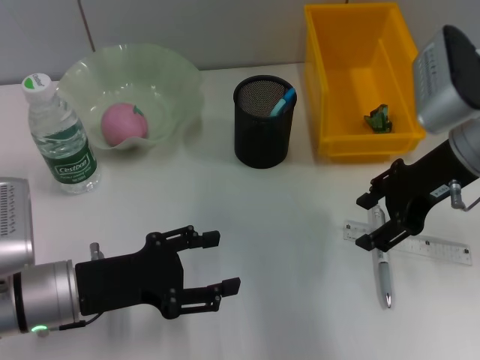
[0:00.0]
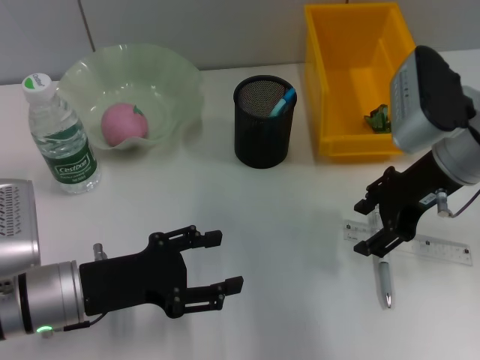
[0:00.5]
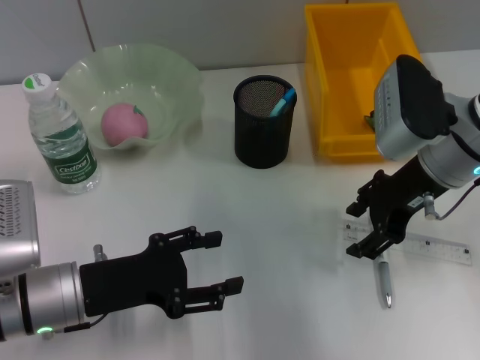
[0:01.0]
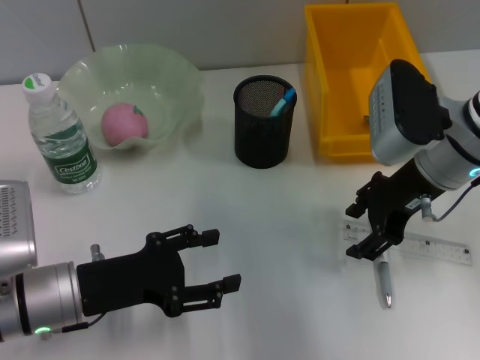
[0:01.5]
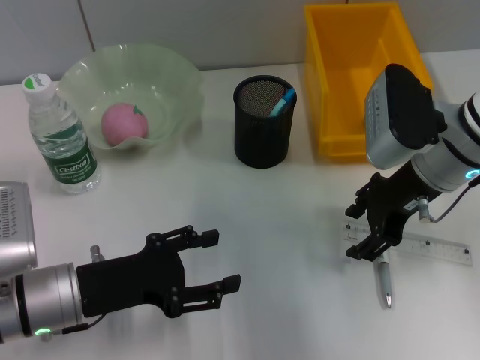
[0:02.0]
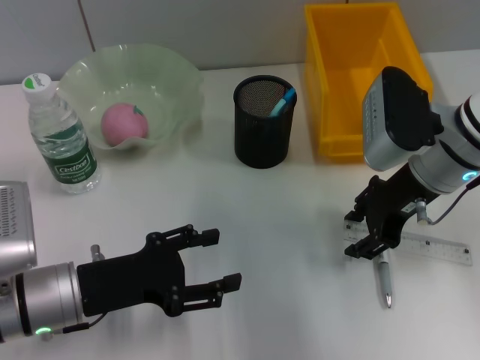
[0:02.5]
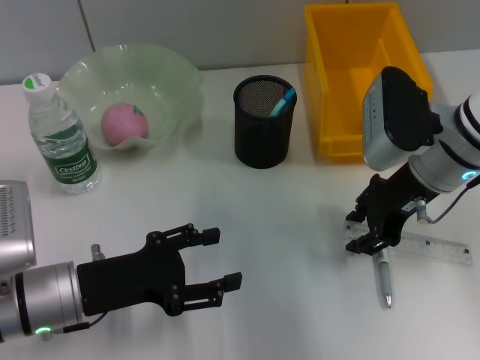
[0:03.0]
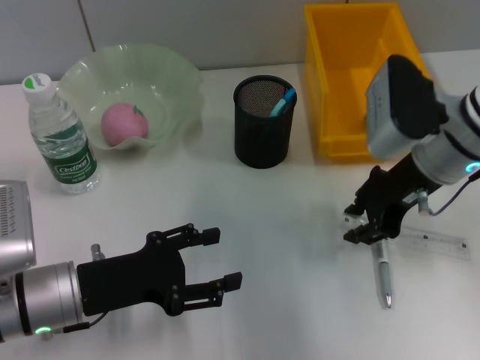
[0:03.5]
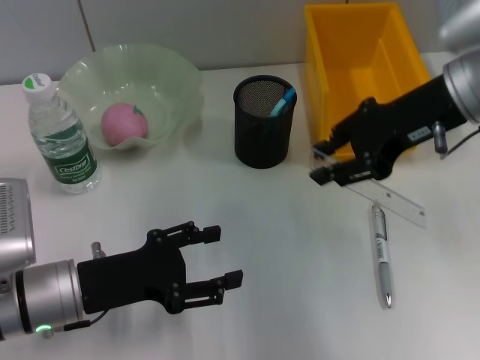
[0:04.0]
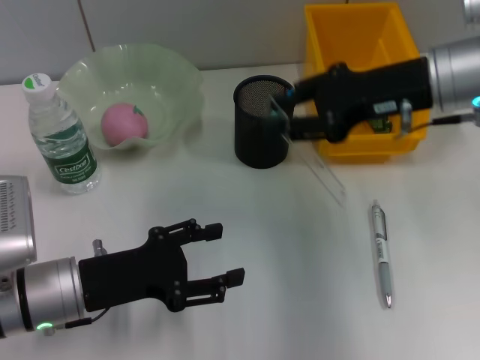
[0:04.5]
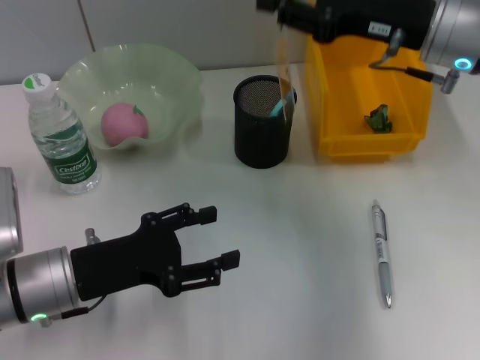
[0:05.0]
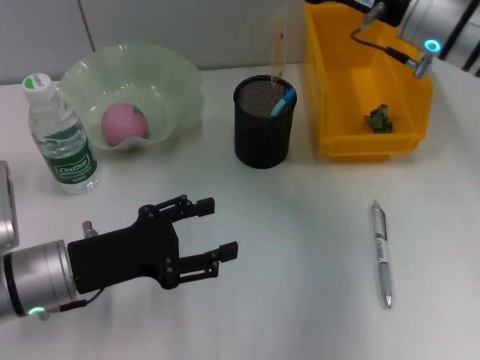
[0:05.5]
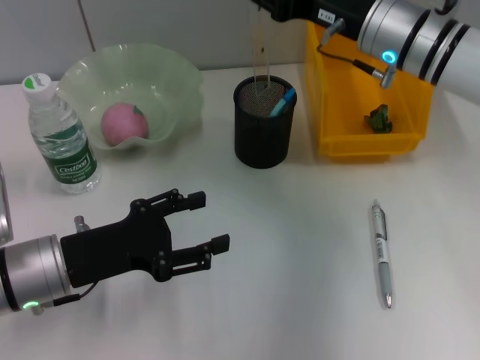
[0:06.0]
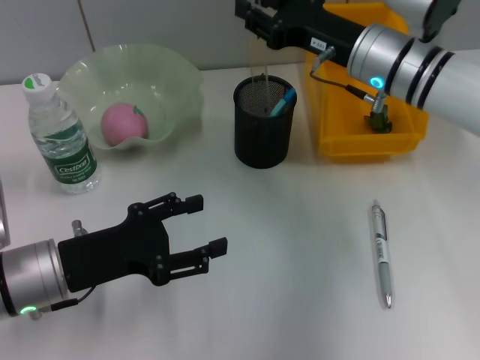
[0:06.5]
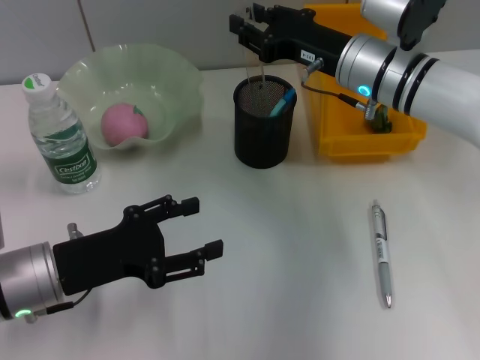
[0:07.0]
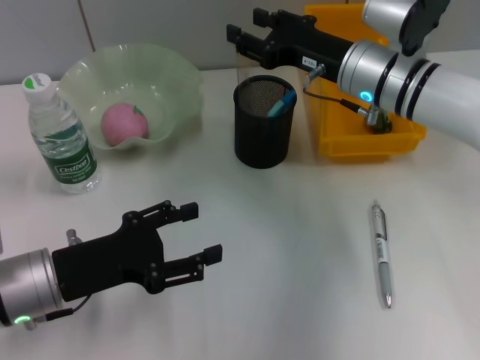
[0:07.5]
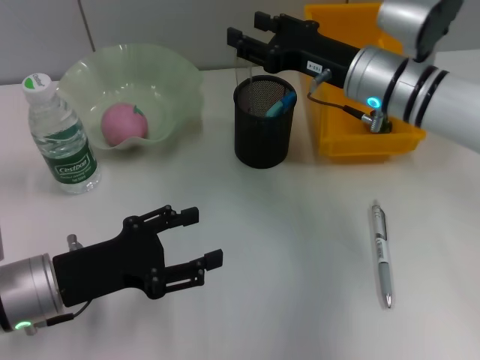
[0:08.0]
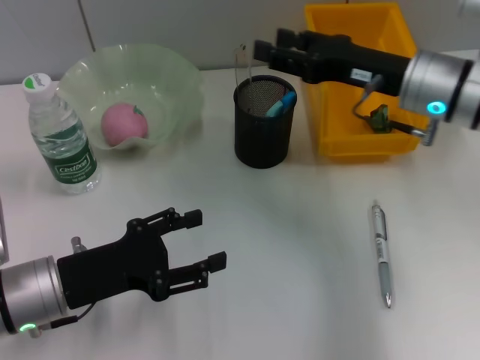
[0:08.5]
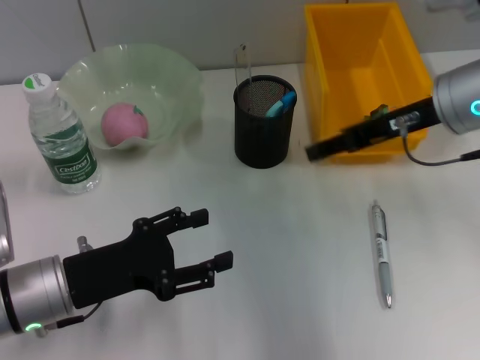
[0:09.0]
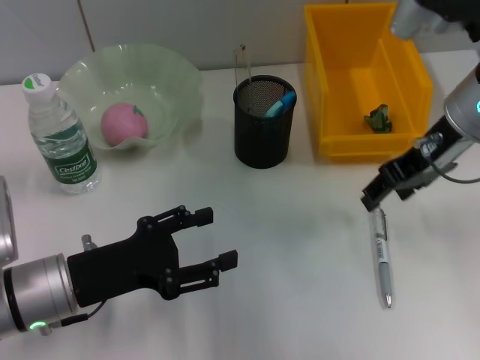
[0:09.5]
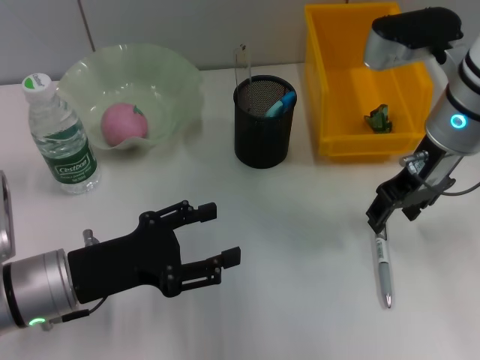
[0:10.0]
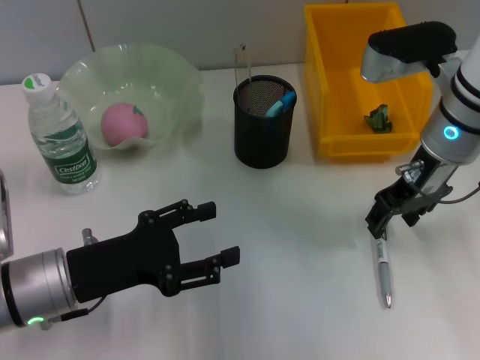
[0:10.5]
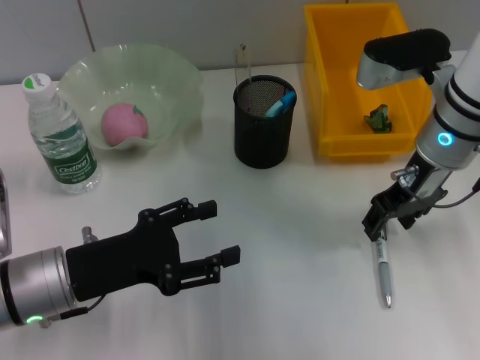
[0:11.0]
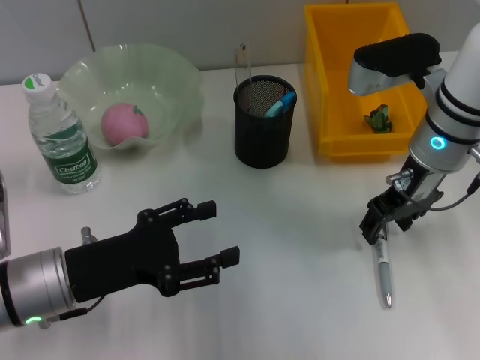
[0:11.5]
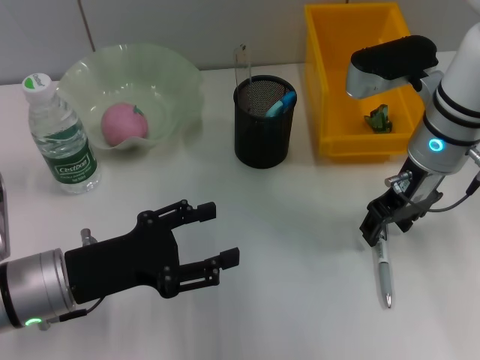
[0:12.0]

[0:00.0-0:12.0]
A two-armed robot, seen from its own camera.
Step, 0:00.0 to 0:03.0: Grab the ruler with the right hand.
Step, 0:03.5 to 0:07.5: Place the ruler into the pen holder with the right hand.
0:00.0 to 0:02.0: There are only small adjustments of the grippers.
0:02.0 to 0:04.0: The right gripper goes some 10 cm upward, and closes.
0:04.0 to 0:06.0: The right gripper shifts some 10 cm forward and downward.
0:06.0 to 0:08.0: The grippers move only a little.
0:08.0 to 0:10.0: The right gripper travels upward by about 5 cm.
0:10.0 to 0:12.0: The grippers stay close to where they were, moving slightly.

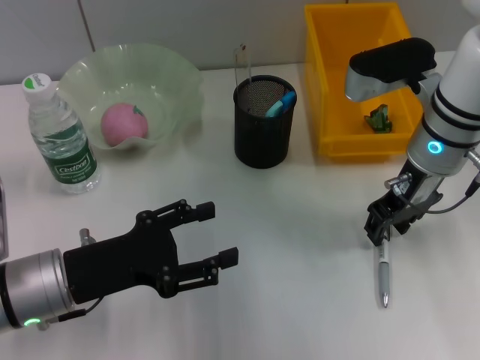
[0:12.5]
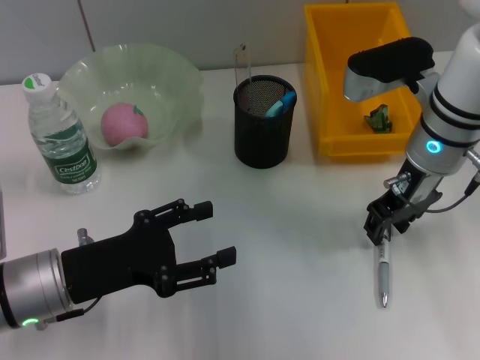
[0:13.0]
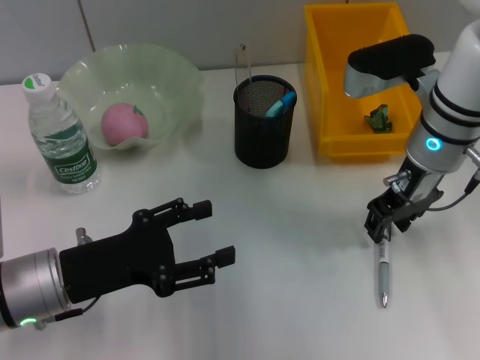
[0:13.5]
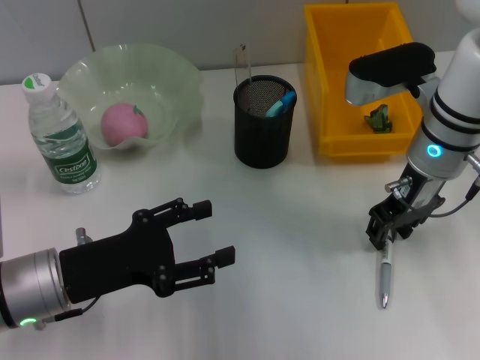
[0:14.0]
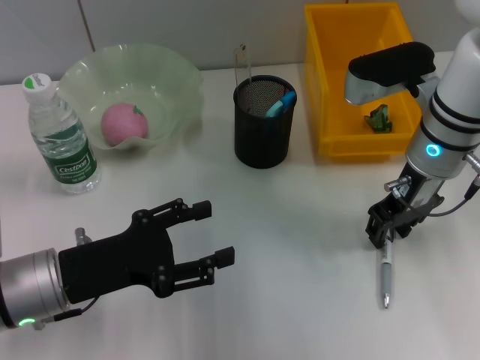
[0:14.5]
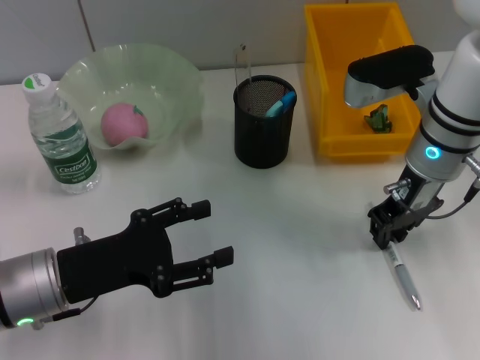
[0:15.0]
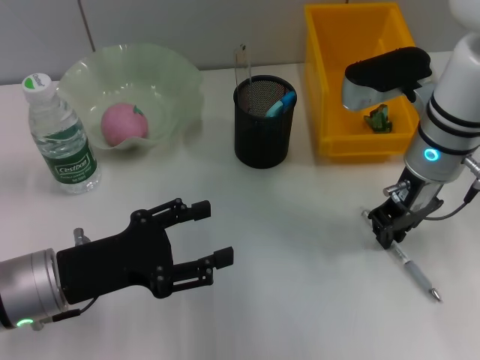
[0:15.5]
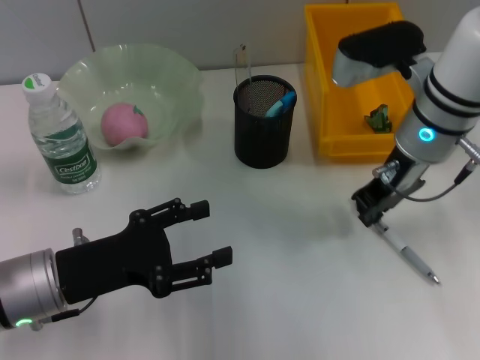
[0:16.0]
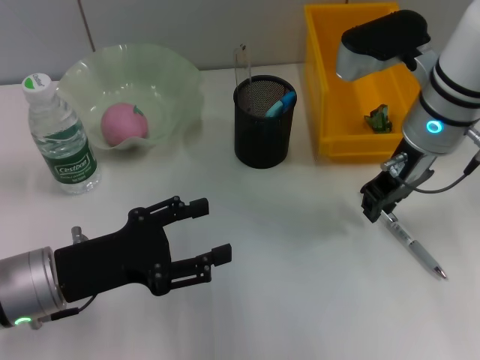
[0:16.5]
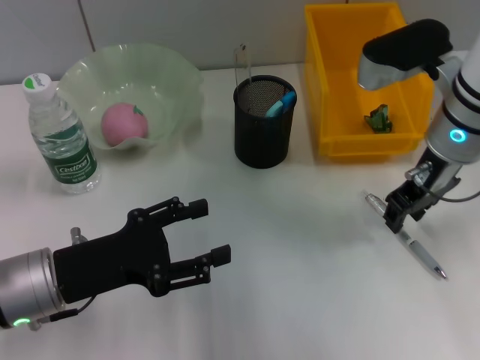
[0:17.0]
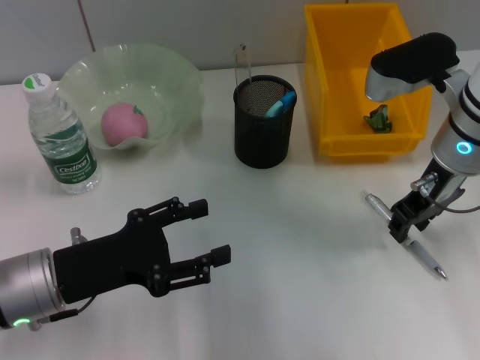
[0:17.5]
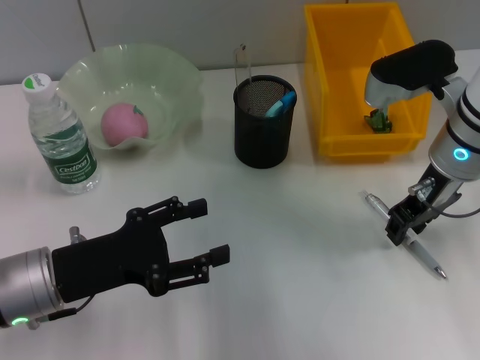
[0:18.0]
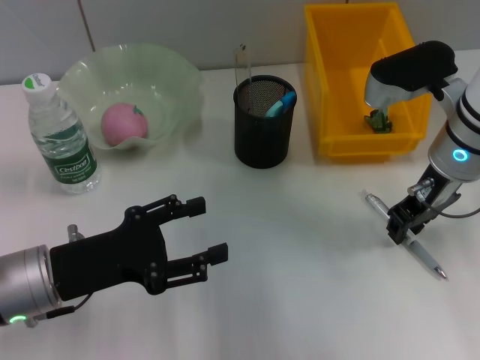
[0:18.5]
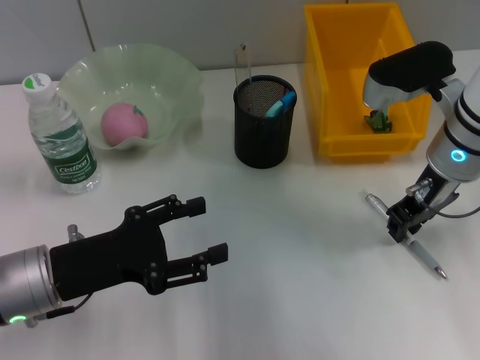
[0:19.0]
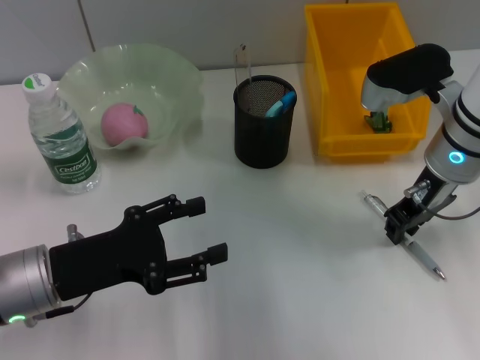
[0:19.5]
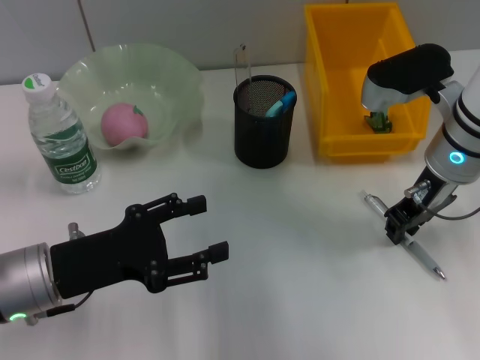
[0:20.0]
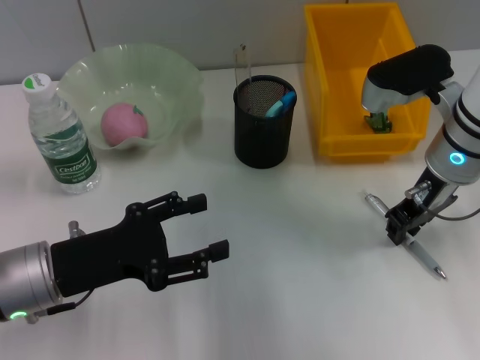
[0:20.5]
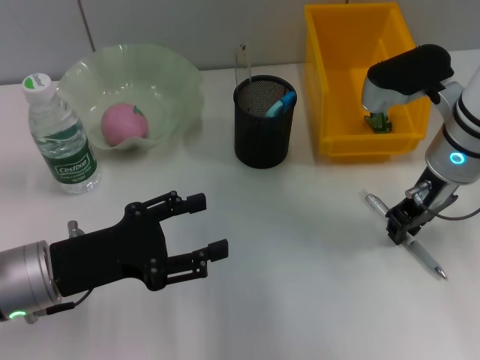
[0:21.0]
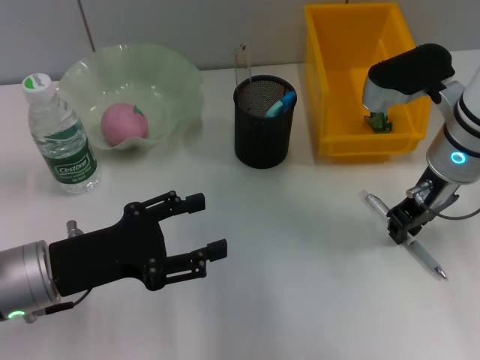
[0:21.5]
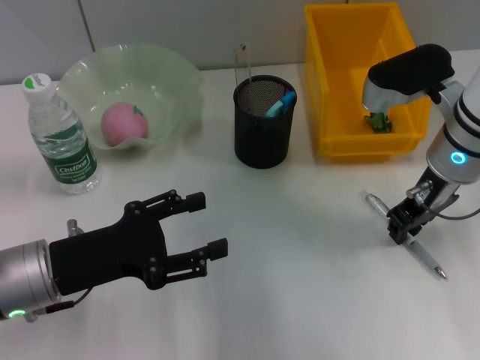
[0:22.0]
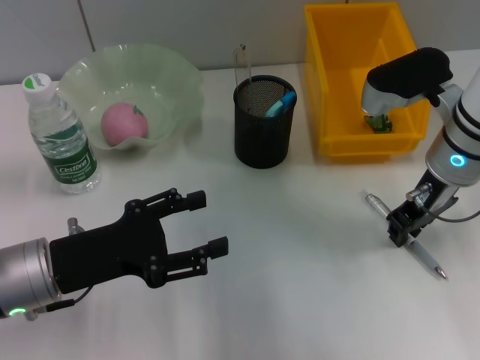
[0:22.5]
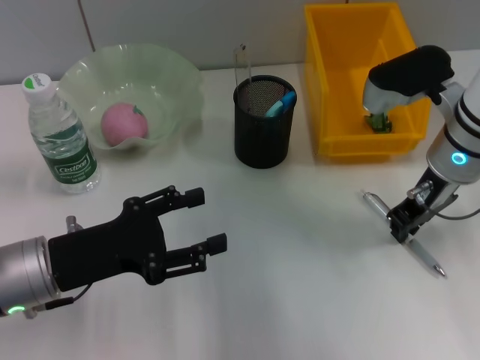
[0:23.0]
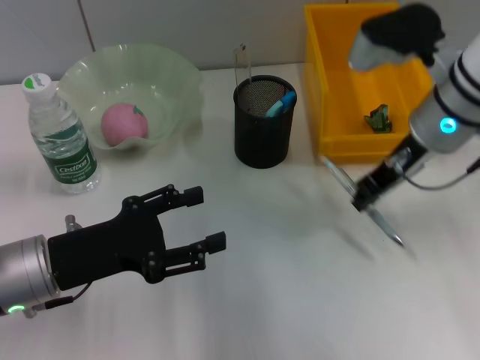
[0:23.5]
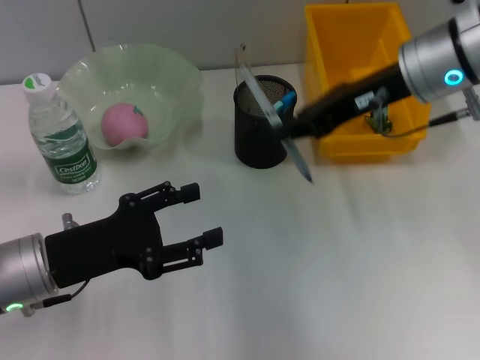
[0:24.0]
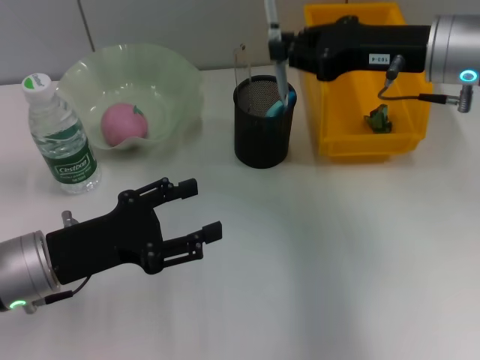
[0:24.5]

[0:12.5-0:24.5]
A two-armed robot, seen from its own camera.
Step, 0:12.5 to 0:22.5: Grab the gray spring-action pen with the right hand.
0:12.5 to 0:14.5: The two grippers keep their place.
0:14.5 to 0:16.5: The right gripper closes.
0:16.5 to 0:18.5: The grippers stay close to where they were, moving slightly.
0:18.5 to 0:22.5: Neither gripper changes place.
0:22.5 to 0:24.5: The right gripper travels upward by roughly 5 cm.

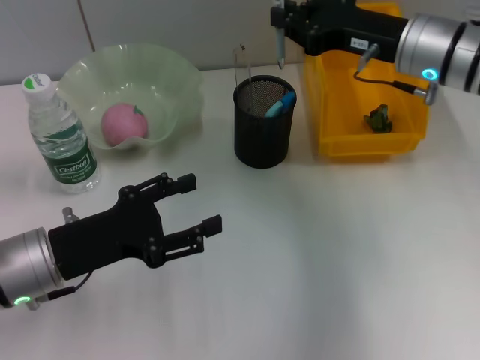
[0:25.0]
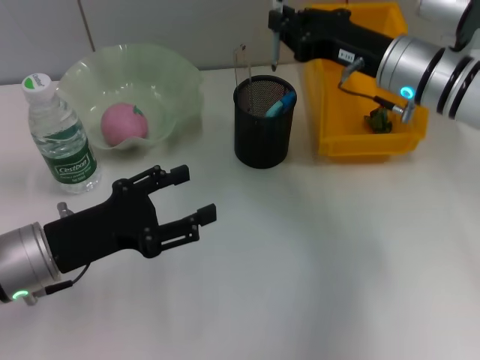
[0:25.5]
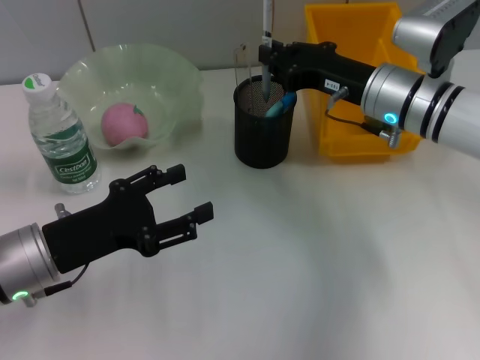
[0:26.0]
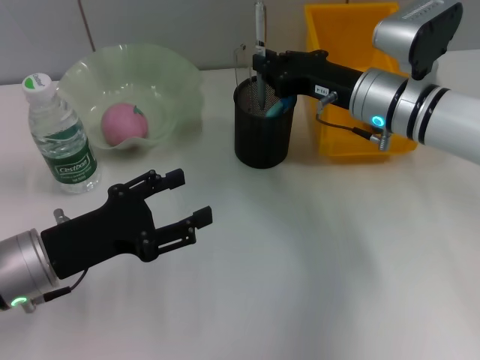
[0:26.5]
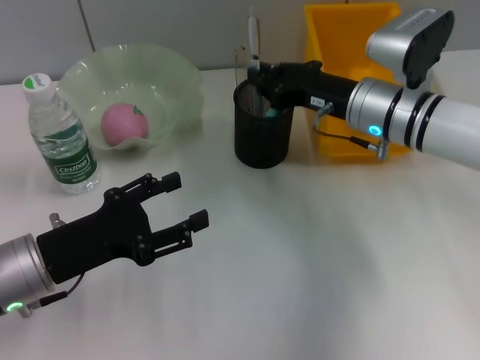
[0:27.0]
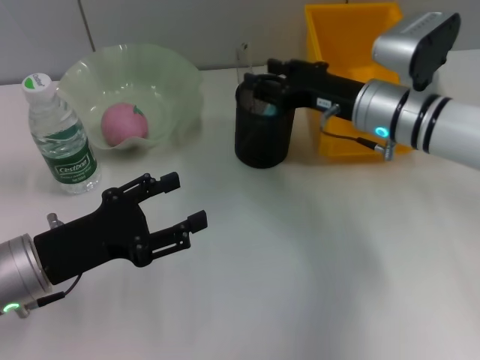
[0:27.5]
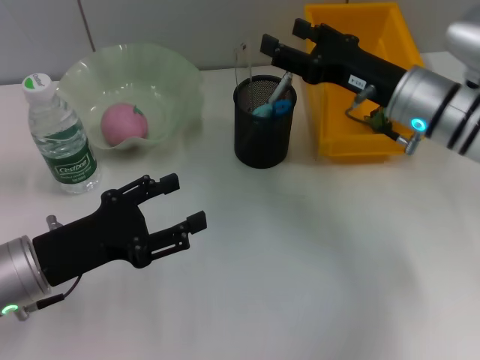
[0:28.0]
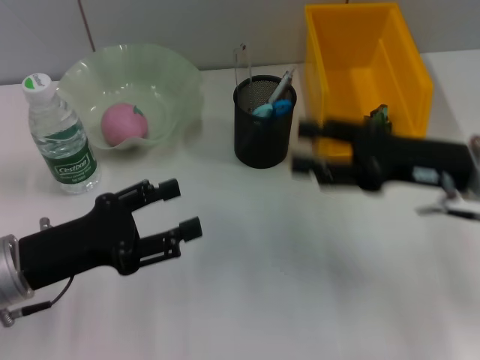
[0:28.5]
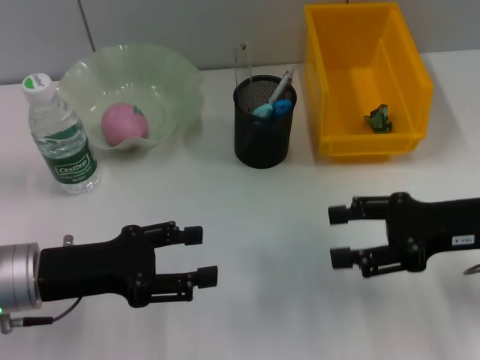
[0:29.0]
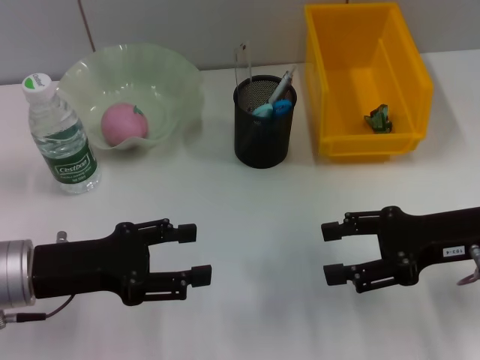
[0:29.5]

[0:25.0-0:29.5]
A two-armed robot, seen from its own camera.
Step, 0:25.0 to 0:27.5: Place the gray spring-action pen into the pen holder with the right hand.
0:25.0 to 0:27.0: The right gripper moves downward, some 5 cm.
0:27.0 to 0:29.5: The right gripper is displaced backward and to the right by roughly 15 cm, and opens up.
